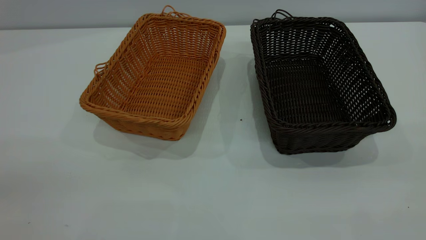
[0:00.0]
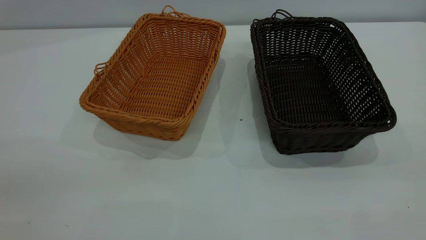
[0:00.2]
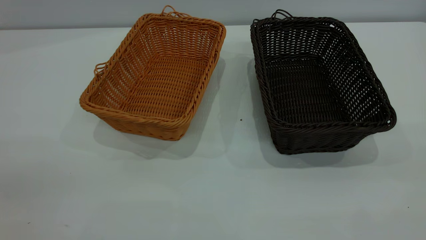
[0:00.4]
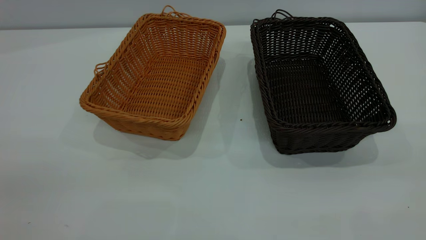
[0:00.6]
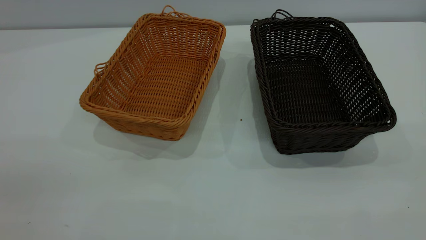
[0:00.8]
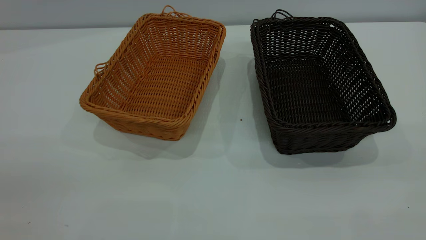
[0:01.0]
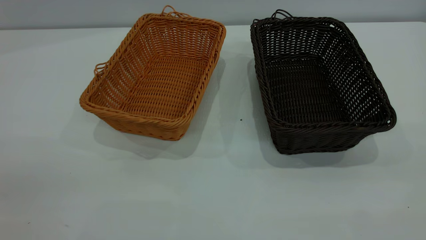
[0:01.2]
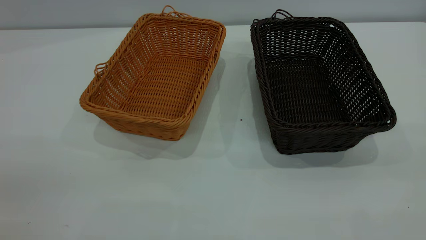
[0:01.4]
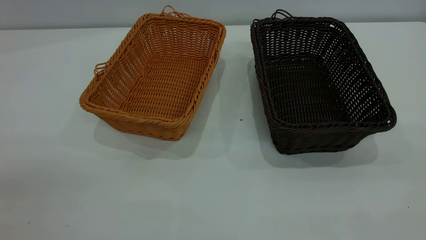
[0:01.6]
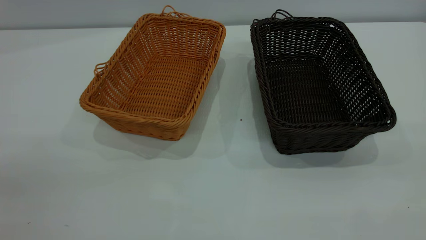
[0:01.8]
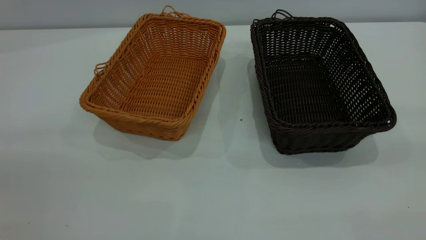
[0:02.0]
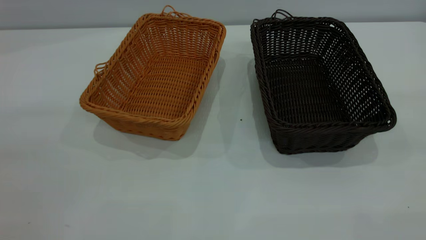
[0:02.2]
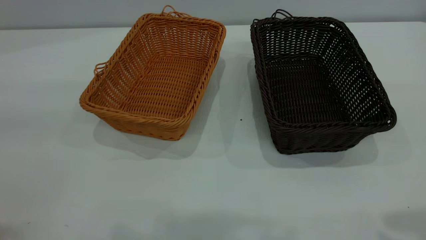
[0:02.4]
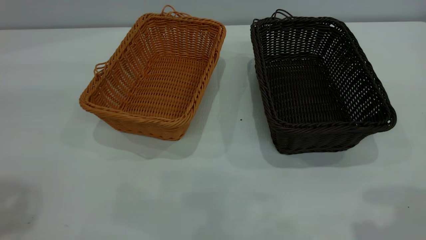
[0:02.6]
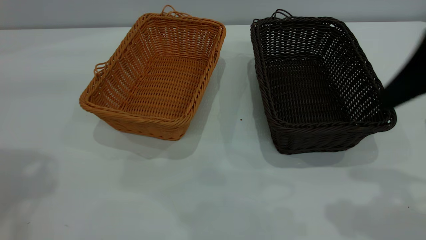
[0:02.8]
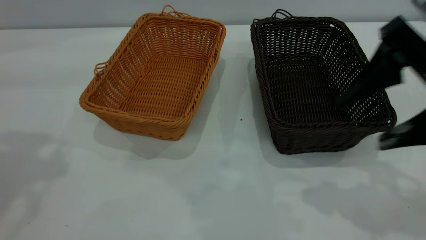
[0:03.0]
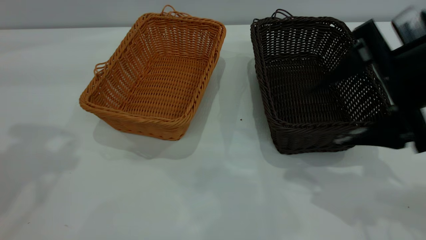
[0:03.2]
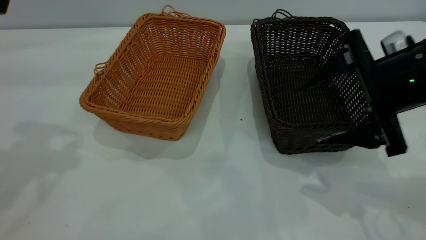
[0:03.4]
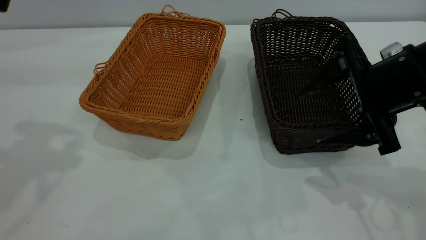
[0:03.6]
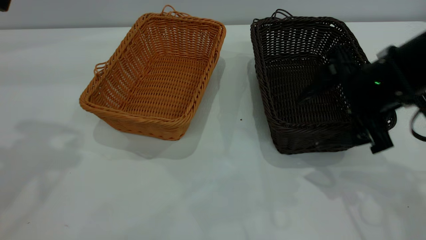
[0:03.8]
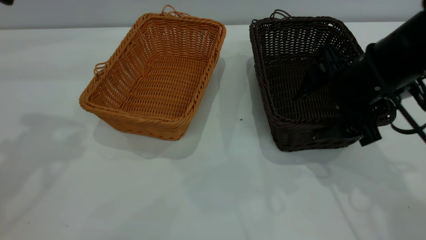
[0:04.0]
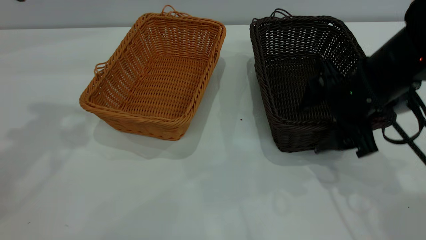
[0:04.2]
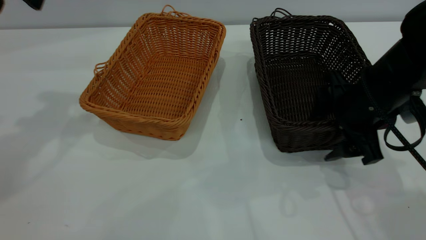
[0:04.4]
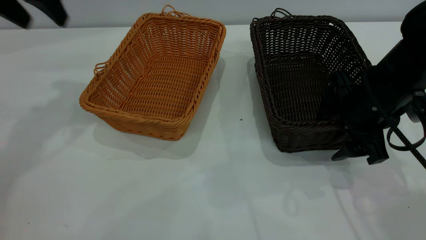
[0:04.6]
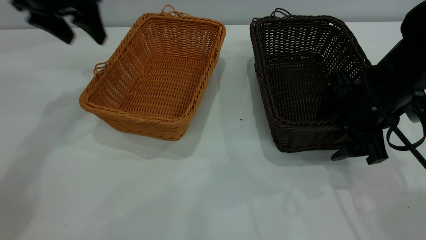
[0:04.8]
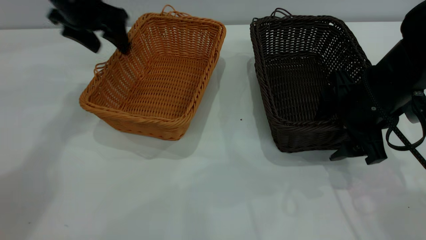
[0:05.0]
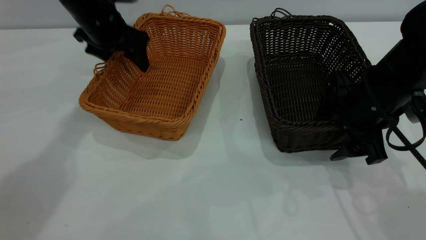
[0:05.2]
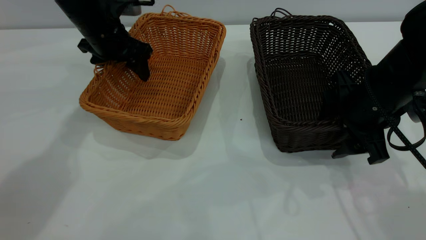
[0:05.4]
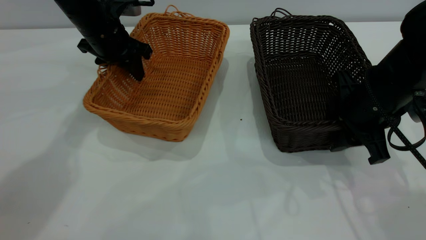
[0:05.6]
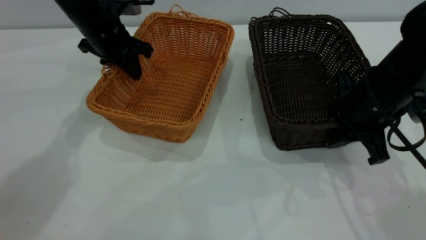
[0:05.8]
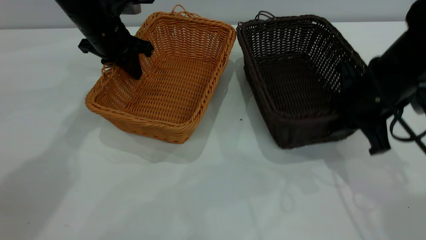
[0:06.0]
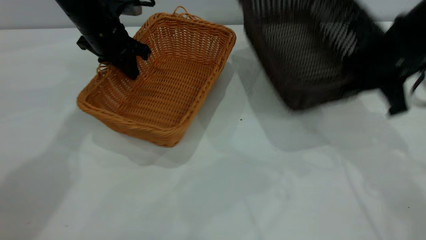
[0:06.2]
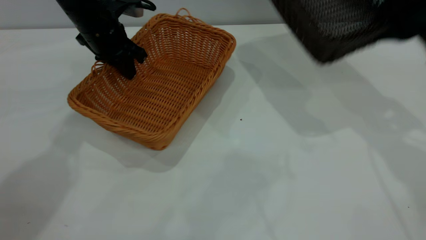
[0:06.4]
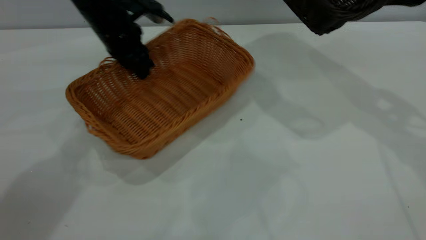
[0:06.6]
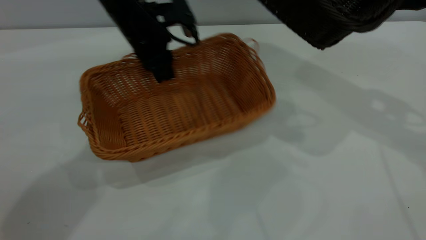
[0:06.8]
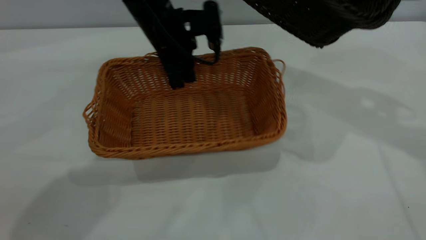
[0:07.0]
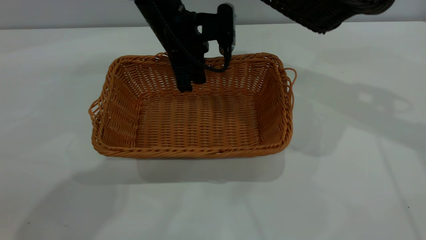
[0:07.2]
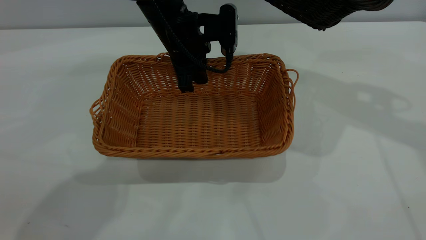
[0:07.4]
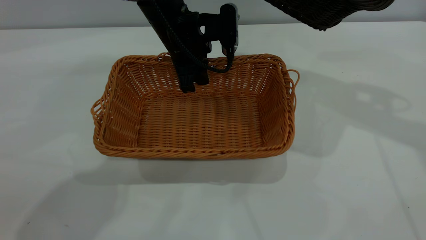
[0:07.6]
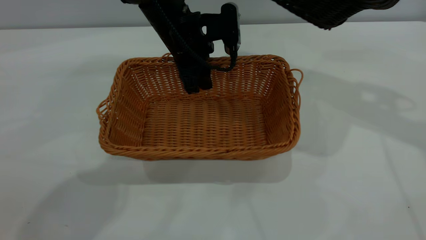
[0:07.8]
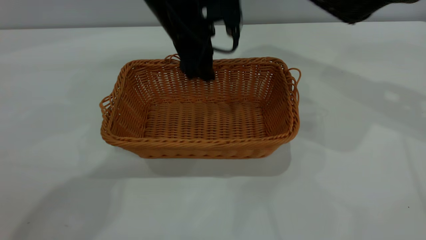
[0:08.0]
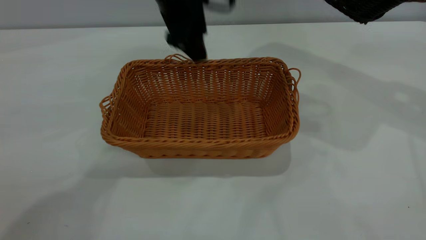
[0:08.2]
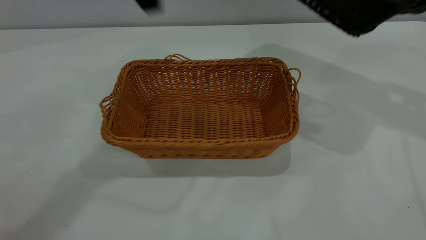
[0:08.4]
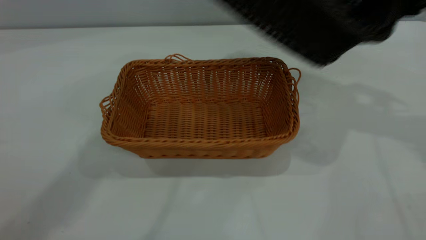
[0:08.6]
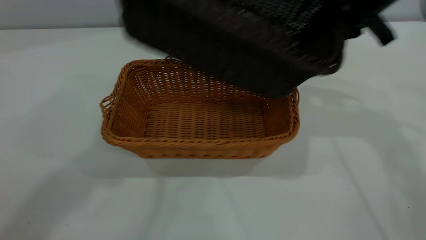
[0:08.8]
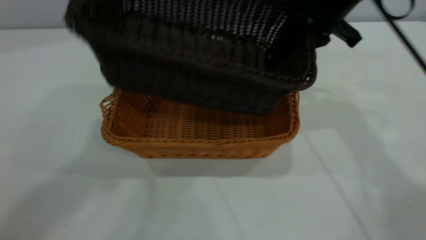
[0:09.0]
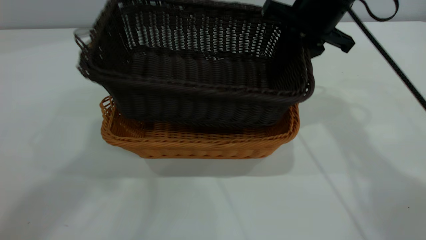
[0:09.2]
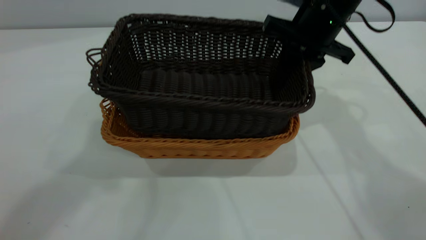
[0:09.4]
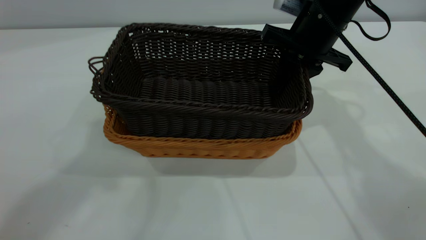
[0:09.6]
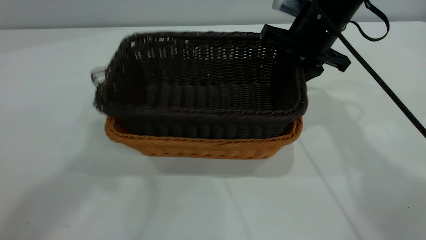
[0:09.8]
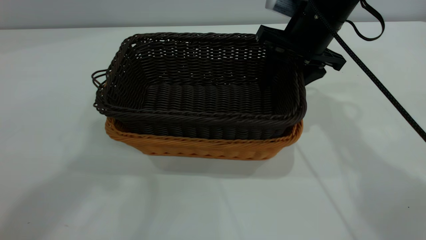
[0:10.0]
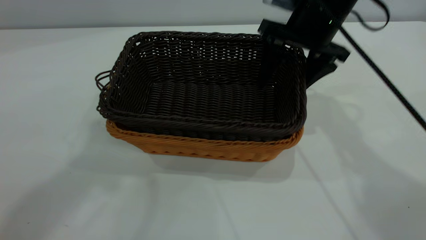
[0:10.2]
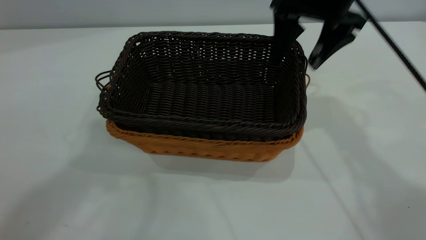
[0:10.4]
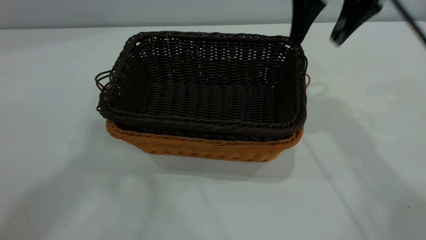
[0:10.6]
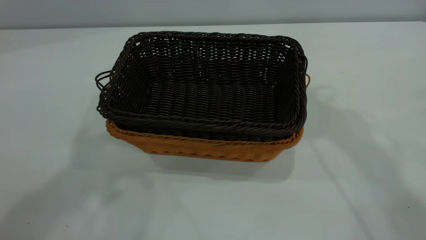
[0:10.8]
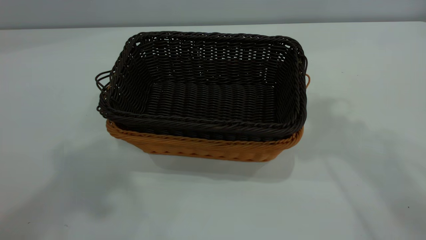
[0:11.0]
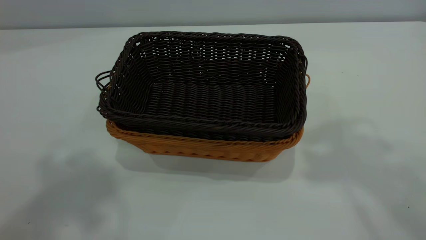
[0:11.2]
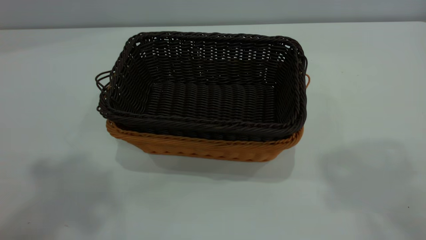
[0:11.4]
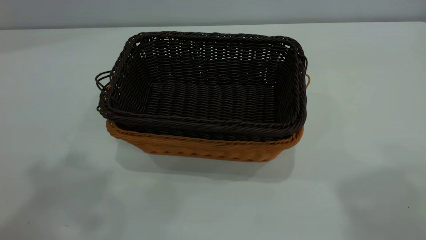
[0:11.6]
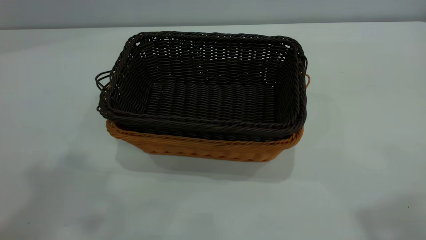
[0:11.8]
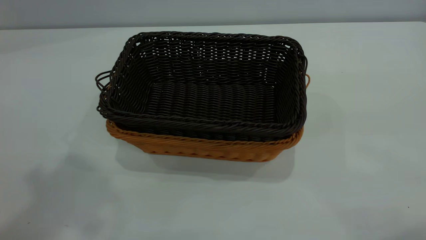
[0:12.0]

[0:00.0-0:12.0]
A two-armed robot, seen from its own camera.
Task of the whole recording: the left gripper grasp the brown basket and place it in the center of the table, the right gripper grasp the black basket and place it inside the brown one.
Step, 0:00.0 to 0:06.2: Pick up the light basket with the right gripper.
Step, 0:06.4 to 0:08.0: Place the light-colored basket in the center.
Step, 0:08.4 to 0:10.4: Place the dark basket on top of the light basket.
0:00.0 to 0:01.6: The two grippers keep their place.
0:01.6 to 0:03.0: The right gripper is displaced forward and downward by approximately 25 cm.
0:03.0 to 0:04.4: The right gripper is displaced downward and forward by roughly 15 cm.
0:04.4 to 0:06.0: The right gripper closes its fingers. The left gripper is displaced downward, forward and to the right by approximately 25 cm, and closes.
0:06.0 to 0:07.6: The left gripper moves to the right, roughly 15 cm. The right gripper shifts some 20 cm upward.
0:07.6 to 0:09.0: The left gripper heads upward and backward, covering roughly 40 cm, and opens. The right gripper heads to the left and downward, covering roughly 15 cm.
0:09.0 to 0:10.4: The right gripper opens.
0:10.4 to 0:12.0: The left gripper shifts roughly 5 cm backward. The right gripper goes some 35 cm backward and upward.

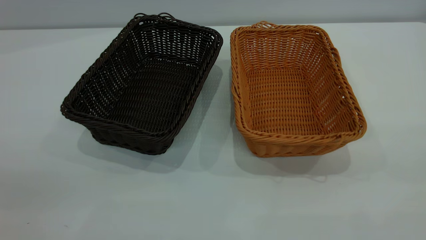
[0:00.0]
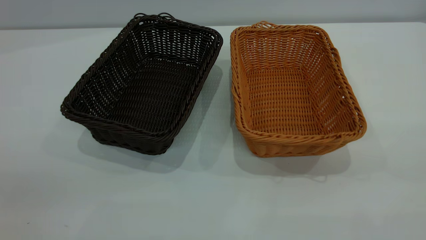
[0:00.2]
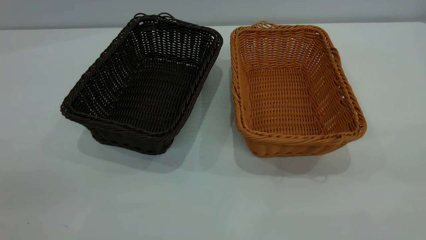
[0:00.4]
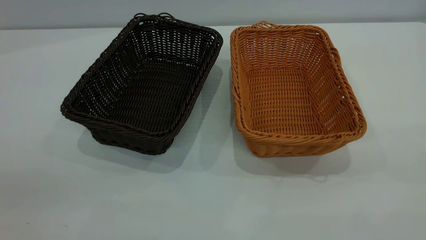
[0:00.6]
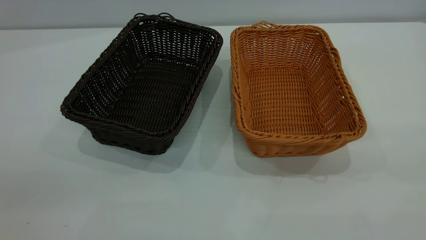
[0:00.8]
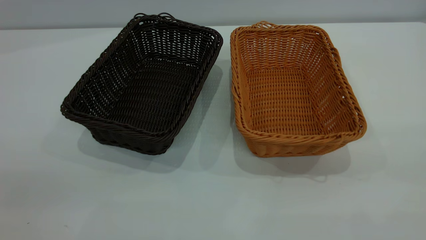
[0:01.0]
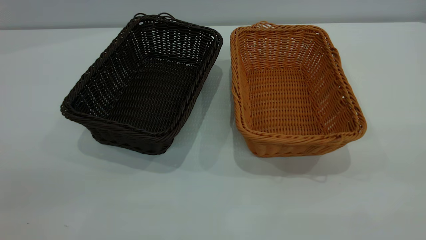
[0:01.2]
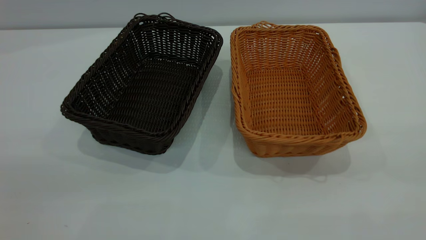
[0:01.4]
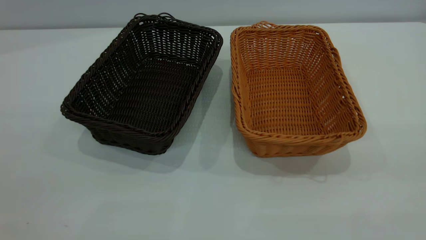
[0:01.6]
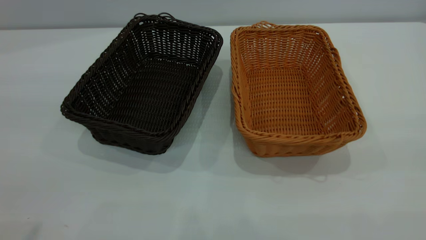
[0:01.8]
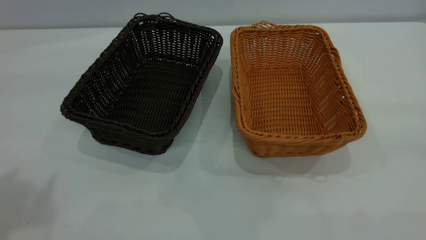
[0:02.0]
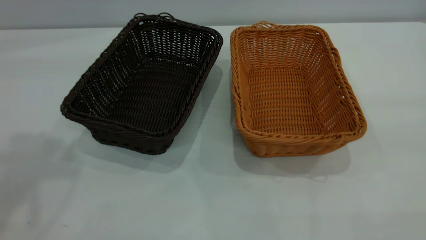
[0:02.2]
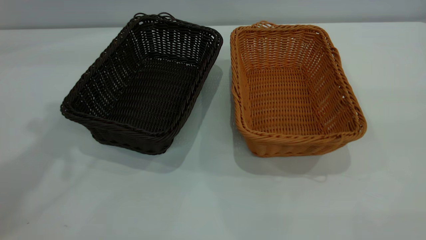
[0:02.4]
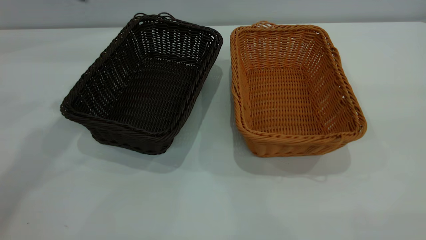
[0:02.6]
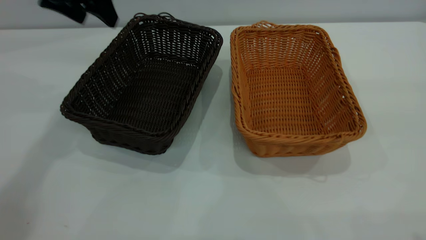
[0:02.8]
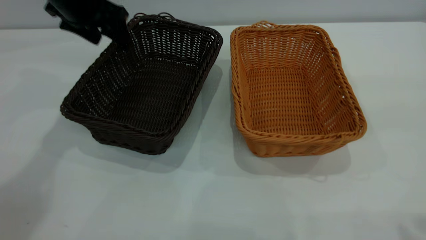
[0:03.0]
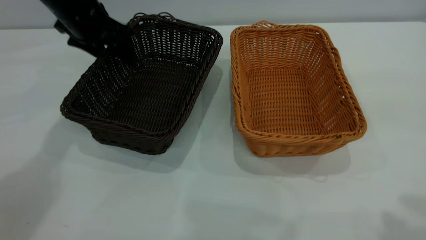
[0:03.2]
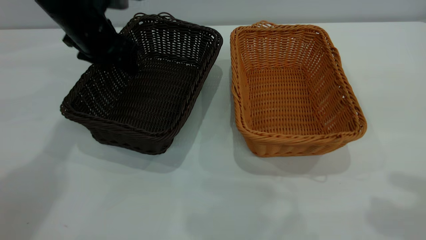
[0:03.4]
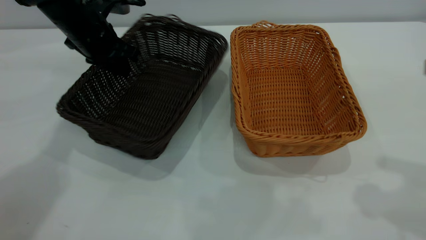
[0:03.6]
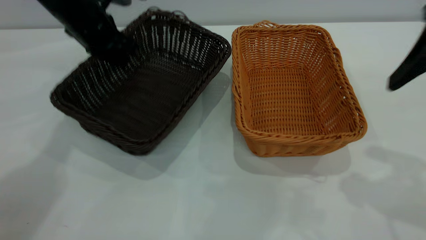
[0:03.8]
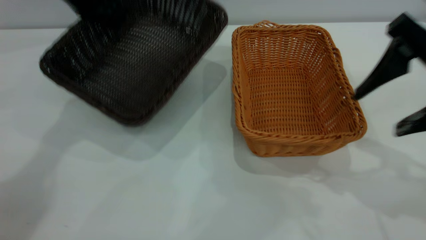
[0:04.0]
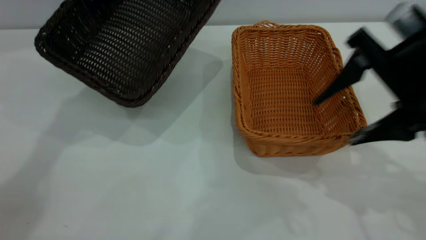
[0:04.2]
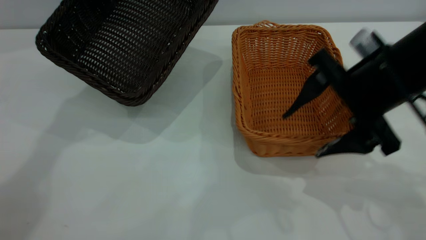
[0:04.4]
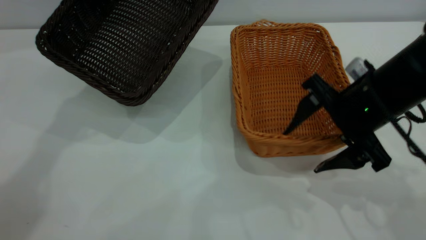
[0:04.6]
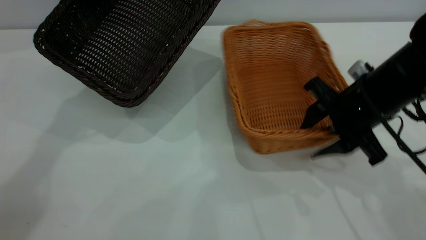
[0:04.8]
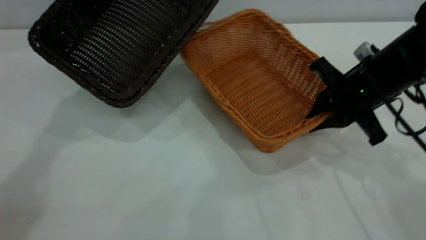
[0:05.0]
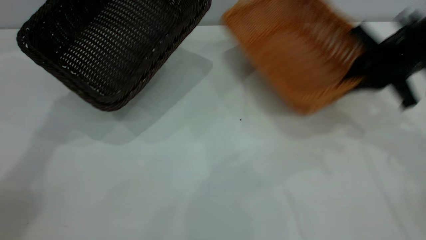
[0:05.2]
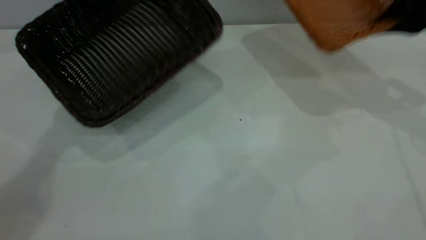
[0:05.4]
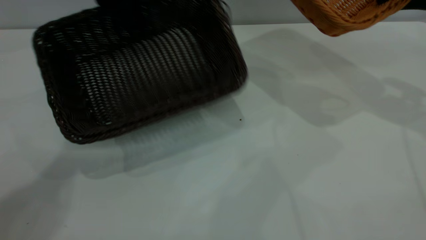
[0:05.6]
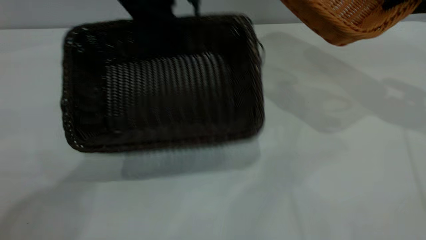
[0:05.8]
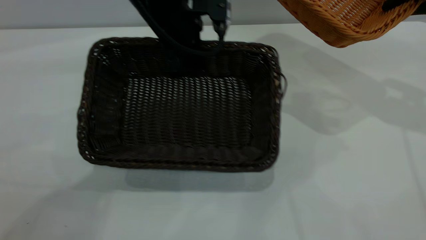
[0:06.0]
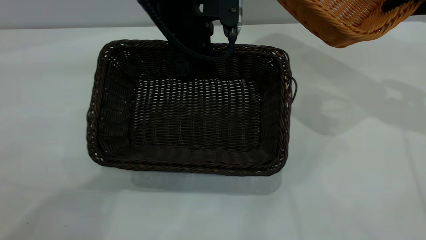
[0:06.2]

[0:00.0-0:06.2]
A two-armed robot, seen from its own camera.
Task of the whole recording: the left gripper grasp the black basket and place it in the center of the table, the right gripper grasp the brown basket and place it inside the black one.
Step, 0:00.0 to 0:05.2: Pick up the light basket with the right gripper.
0:01.6 to 0:03.2: The left gripper shifts roughly 50 cm forward and downward.
0:03.2 to 0:04.6: The left gripper heads upward, covering some 10 cm, and closes. Meanwhile the right gripper moves downward and forward, roughly 25 cm.
0:04.6 to 0:06.2: The right gripper goes about 20 cm to the right, upward and forward, and closes up. The left gripper moves to the right and backward, roughly 20 cm.
